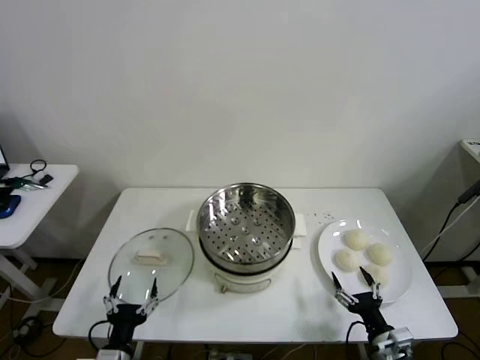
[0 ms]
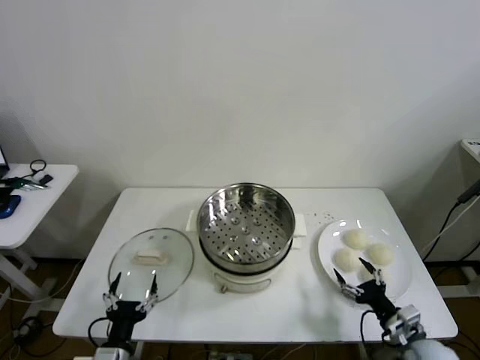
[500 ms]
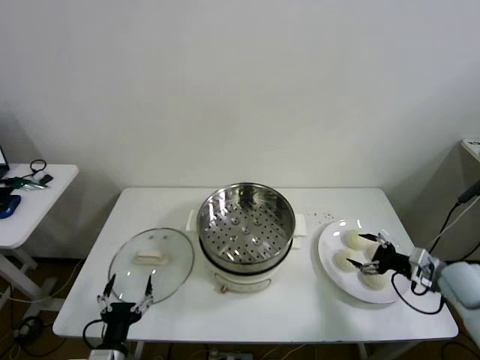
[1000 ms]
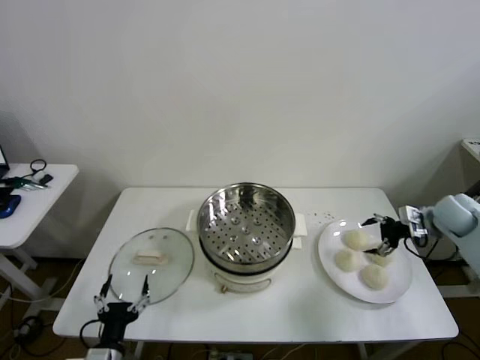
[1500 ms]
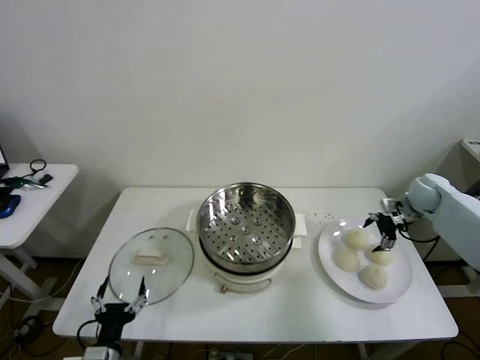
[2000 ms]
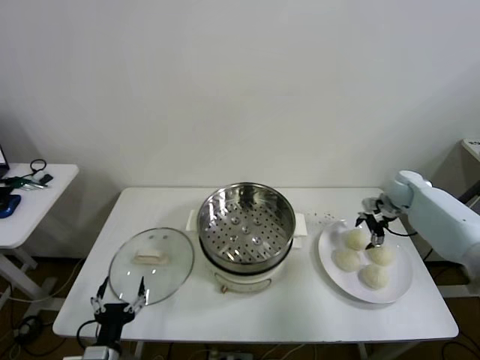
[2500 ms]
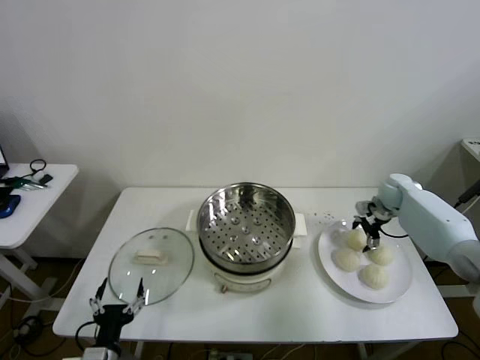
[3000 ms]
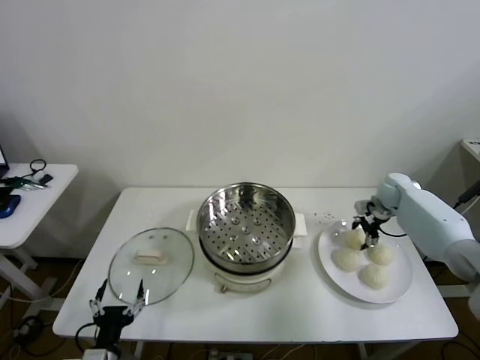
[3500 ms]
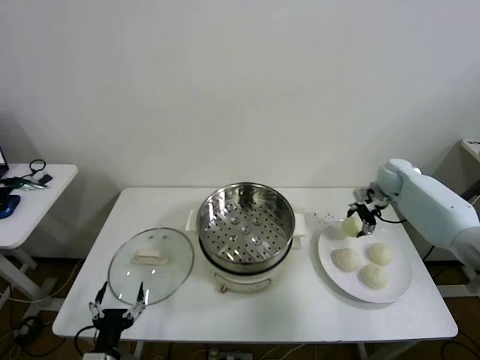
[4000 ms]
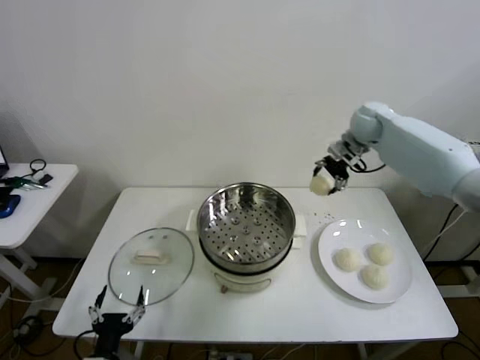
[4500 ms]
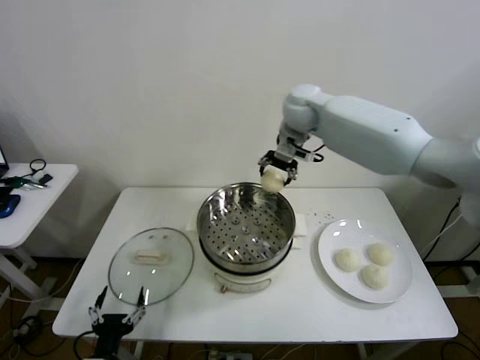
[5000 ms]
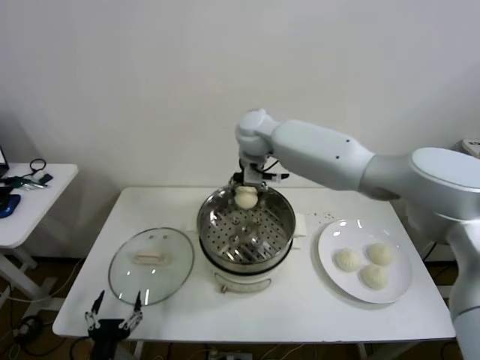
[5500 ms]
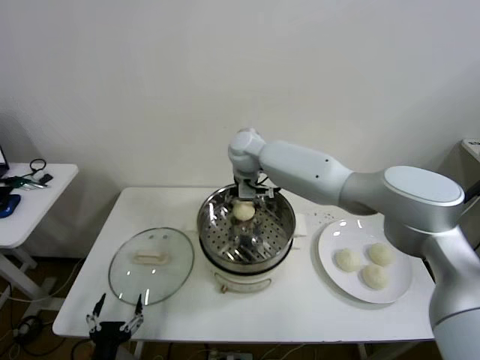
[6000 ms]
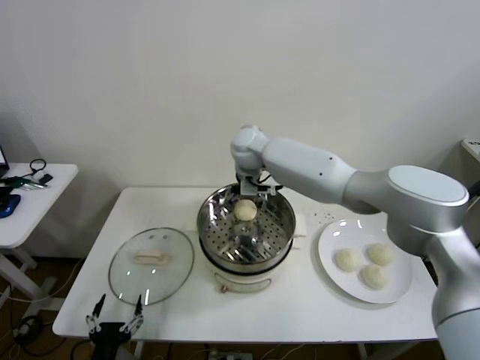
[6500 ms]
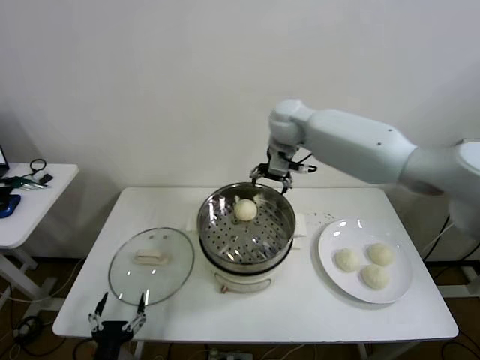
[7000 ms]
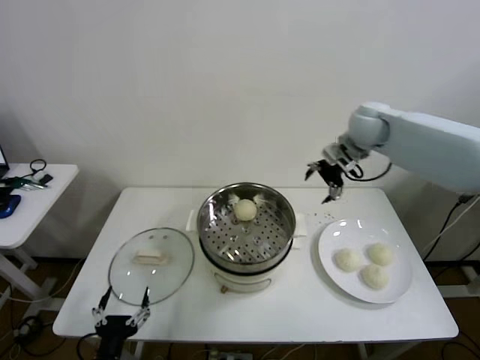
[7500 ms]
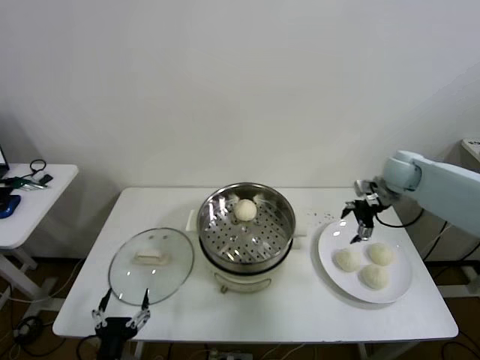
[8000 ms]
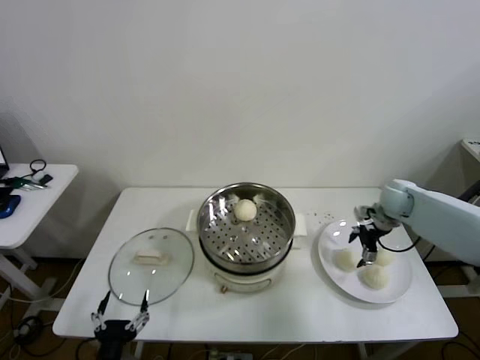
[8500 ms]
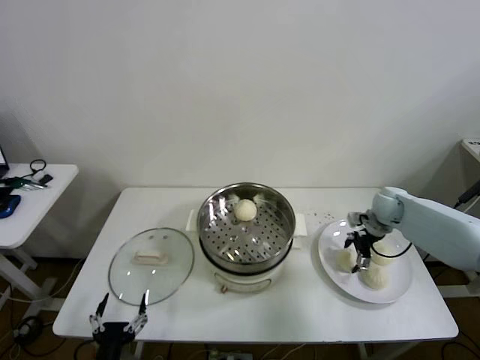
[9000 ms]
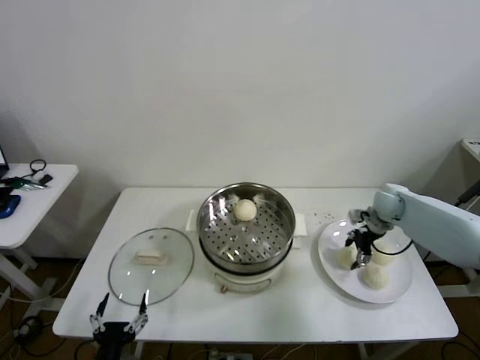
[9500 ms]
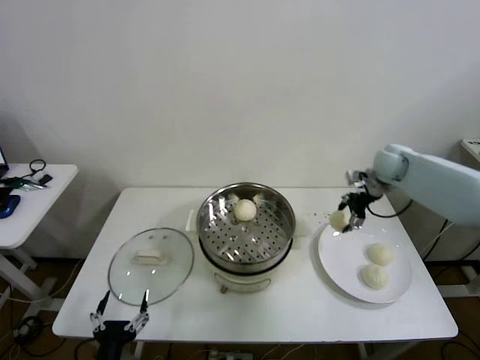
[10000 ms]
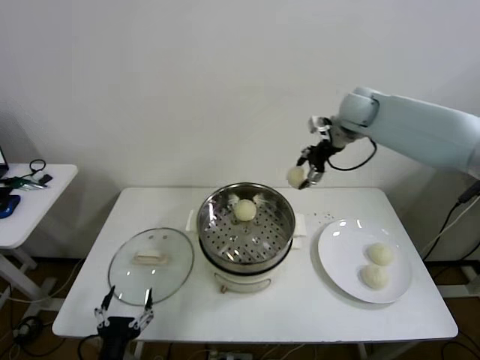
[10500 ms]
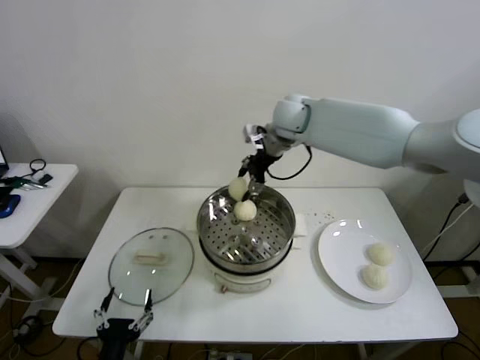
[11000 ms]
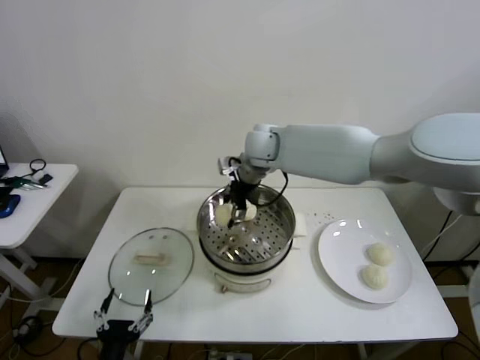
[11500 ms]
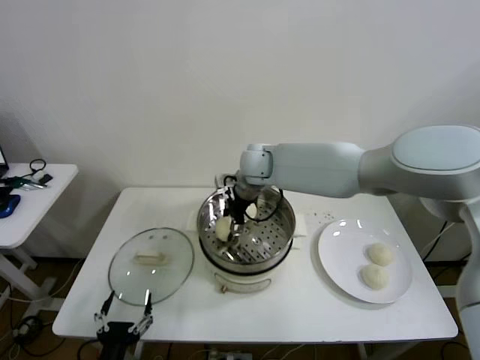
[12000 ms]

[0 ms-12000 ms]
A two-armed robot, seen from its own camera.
Step, 0 ms to 3500 ms: Grasp the baozi in the plate with right gripper.
Step, 4000 ms to 6000 ms: Place the baozi on the steamer with right gripper.
Step, 6500 ms to 9000 ms: Grasp the baozi in the plate with right gripper.
2000 ms to 4000 ms: The right gripper travels to the left and forward by about 10 cm, and closes its fingers.
4000 ms to 6000 ms: The right gripper is displaced to the left by roughly 40 cm.
6000 ms to 8000 ms: The right gripper shifts roughly 40 cm to the right, and opens its fingers.
8000 ms to 10000 ms: The right gripper travels downward and back again, roughly 10 cm each way, and closes up.
10000 ms to 12000 ms: The right gripper is displaced to the left by approximately 35 cm.

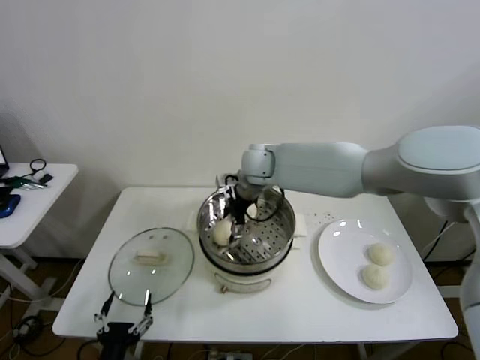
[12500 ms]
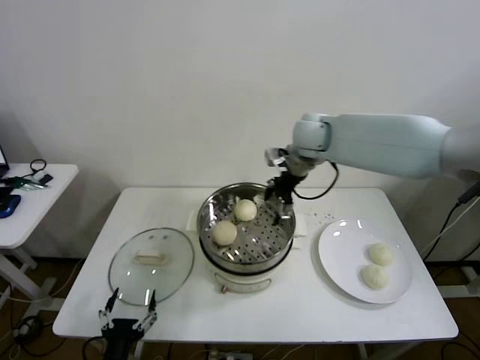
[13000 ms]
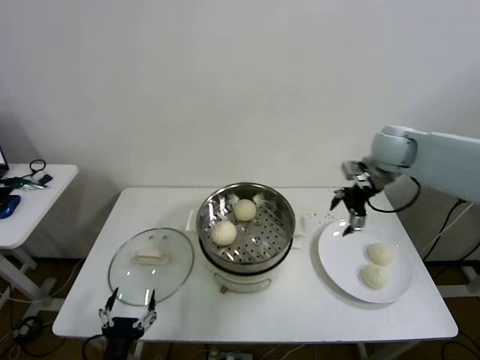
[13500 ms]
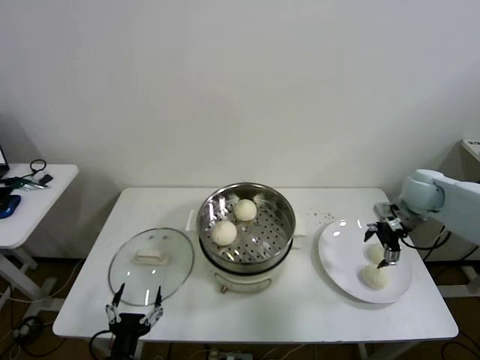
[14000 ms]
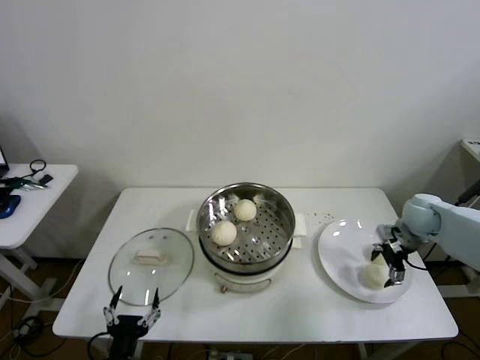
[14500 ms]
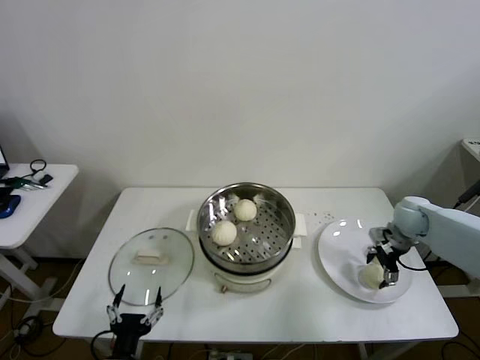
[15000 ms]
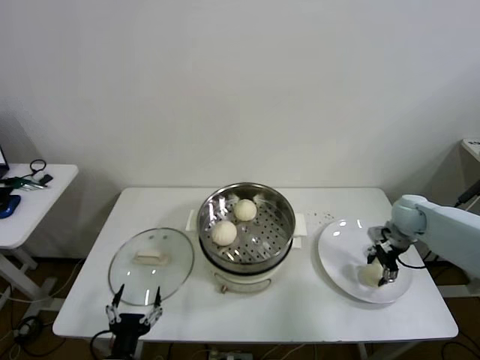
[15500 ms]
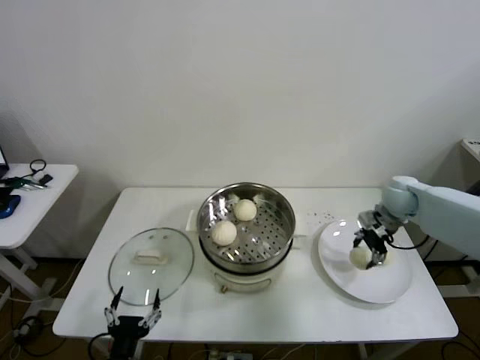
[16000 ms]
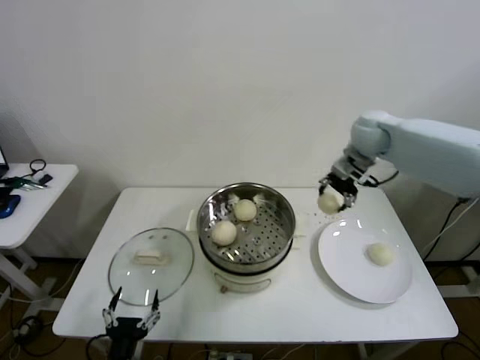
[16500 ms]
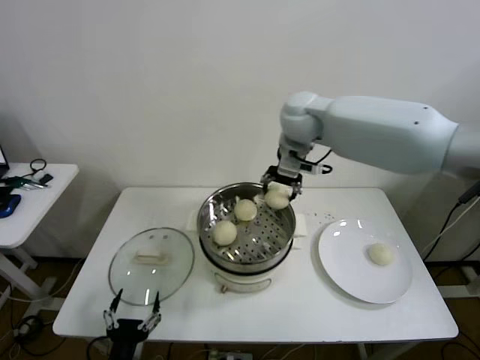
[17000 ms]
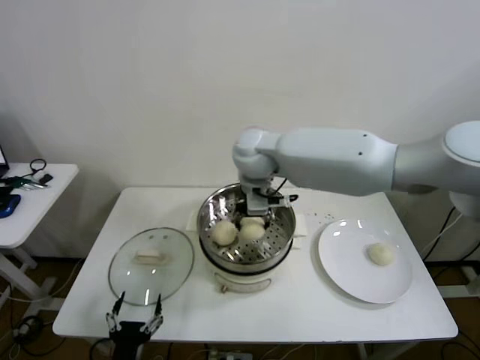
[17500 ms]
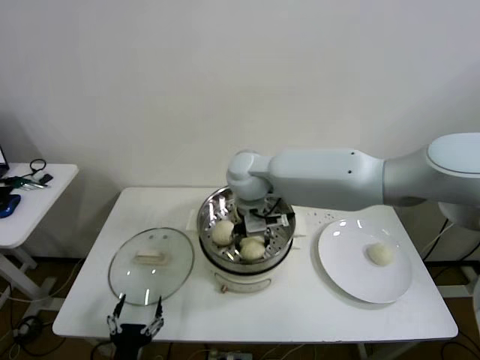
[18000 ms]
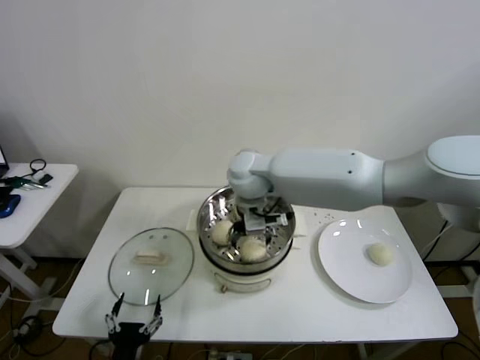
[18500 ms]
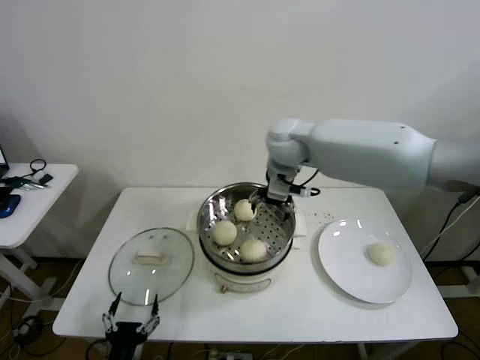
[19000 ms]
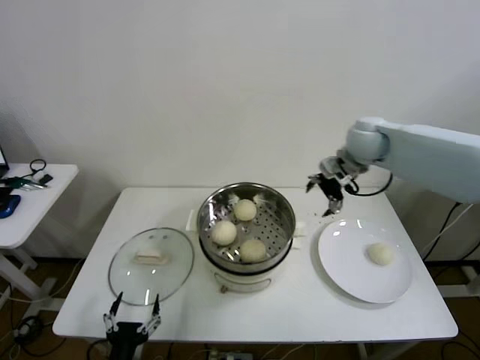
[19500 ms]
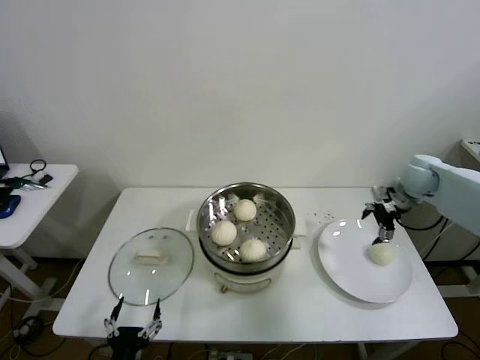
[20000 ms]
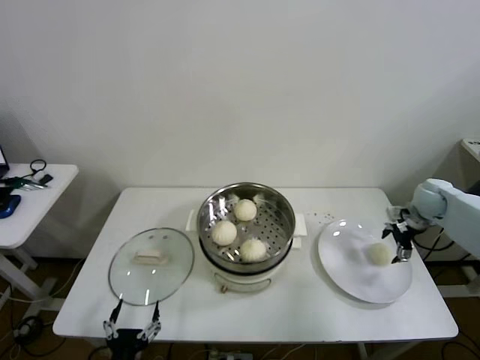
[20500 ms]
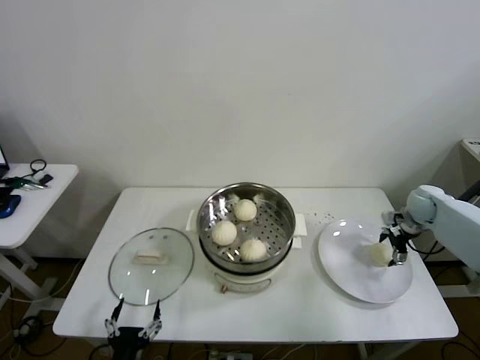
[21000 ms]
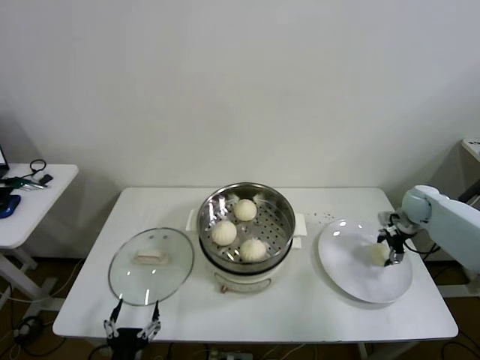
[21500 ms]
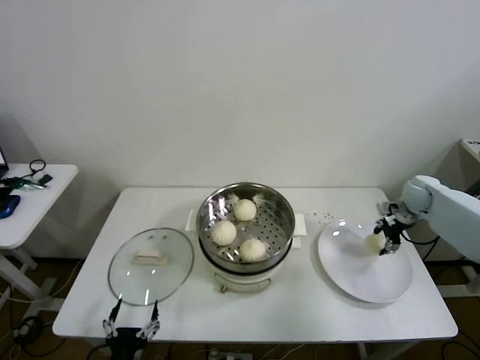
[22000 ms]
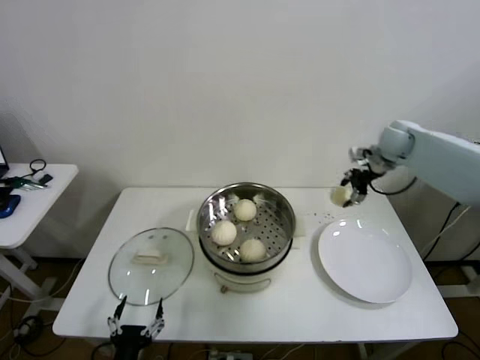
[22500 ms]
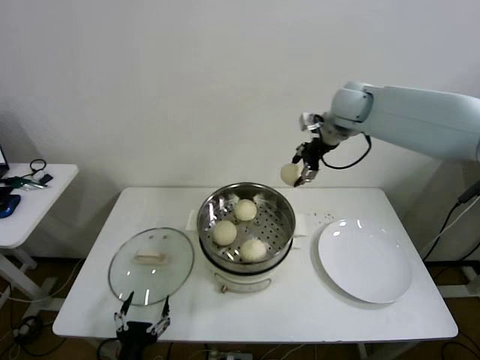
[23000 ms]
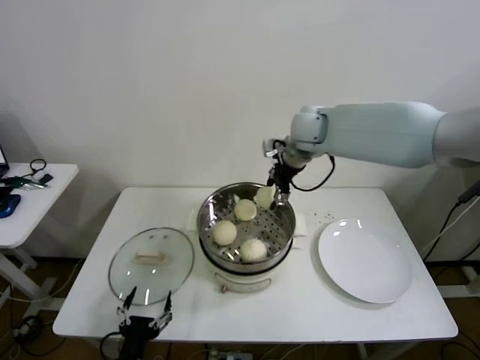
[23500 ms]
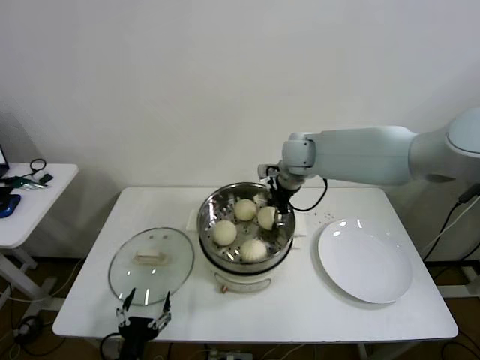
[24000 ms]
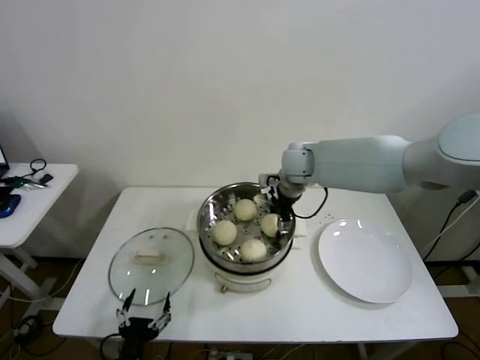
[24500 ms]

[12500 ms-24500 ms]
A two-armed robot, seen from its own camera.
Step, 13000 ms to 15000 ms: Grasp the baozi in the plate with right gripper.
Step, 15500 ms to 18000 ms: Place the baozi on the steamer with right gripper.
Step, 18500 ms to 21000 ms: Grasp the baozi in the plate with right gripper.
12500 ms to 14500 ms: The right gripper is displaced to the right by roughly 40 cm.
14500 ms to 16500 ms: The right gripper shifts roughly 25 cm upward, to the left and forward, and closes its fingers.
16500 ms to 18500 ms: The right gripper shifts about 25 cm to the left, and opens.
18500 ms to 20500 ms: The right gripper heads to the right, covering roughly 50 cm.
20500 ms to 22500 ms: The right gripper is displaced upward, to the left and forward by some 20 cm, and closes.
22500 ms to 24500 ms: The right gripper is displaced to the left by some 25 cm, and opens up.

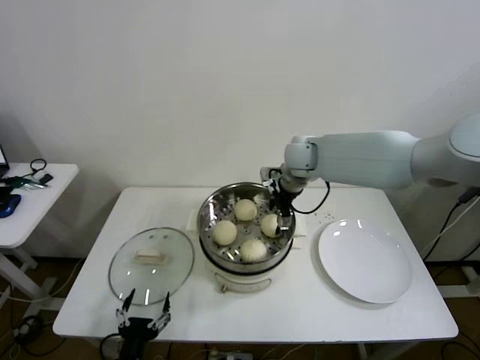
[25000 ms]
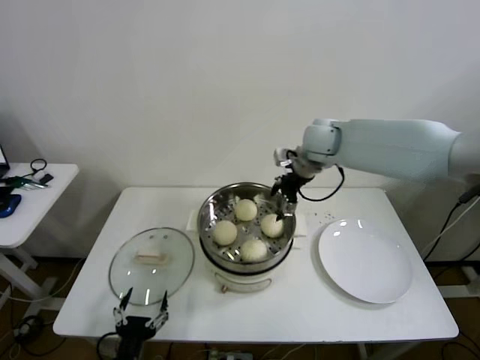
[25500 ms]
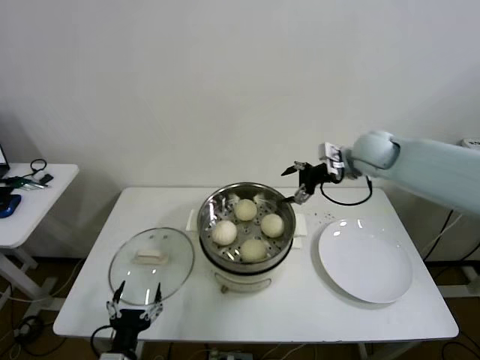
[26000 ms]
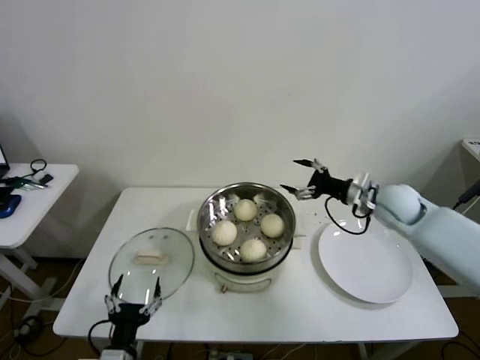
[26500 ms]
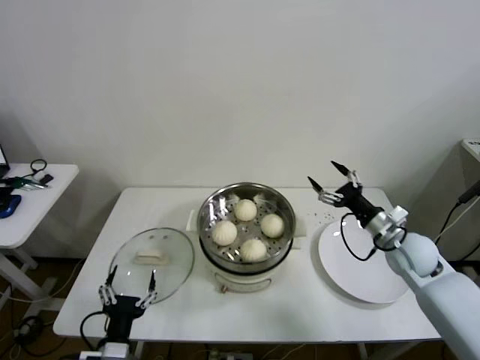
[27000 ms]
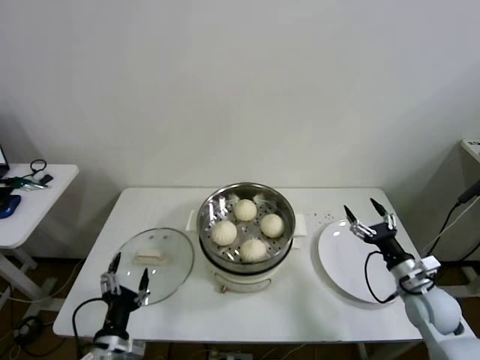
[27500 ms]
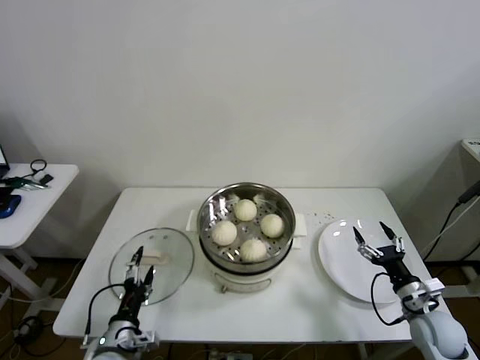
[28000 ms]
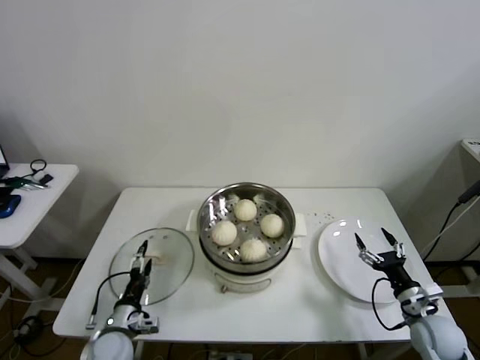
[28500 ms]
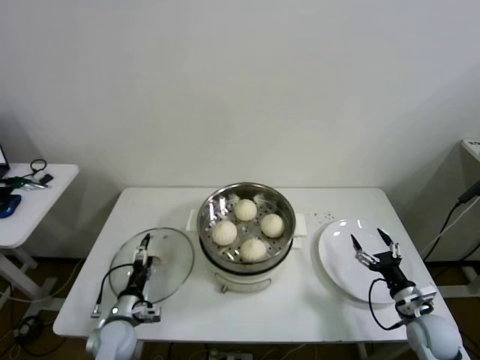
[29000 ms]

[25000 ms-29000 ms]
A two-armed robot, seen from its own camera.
25000 ms to 27000 ms: The right gripper shifts roughly 30 cm to the right, backward and downward.
27000 ms to 29000 ms: The left gripper heads forward, downward and to the left, covering approximately 20 cm; the right gripper travels downward and backward by roughly 20 cm.
